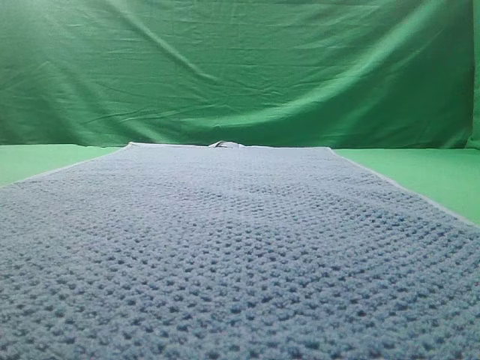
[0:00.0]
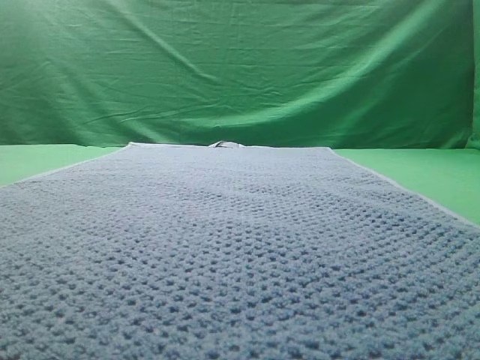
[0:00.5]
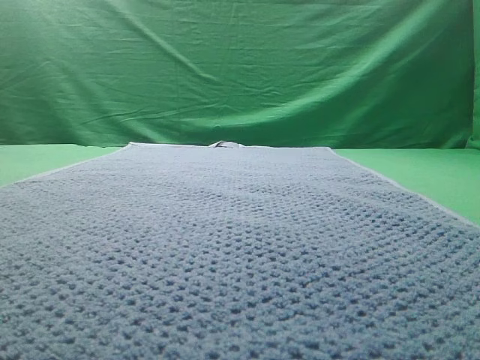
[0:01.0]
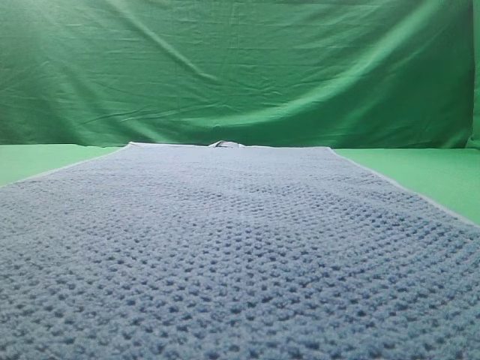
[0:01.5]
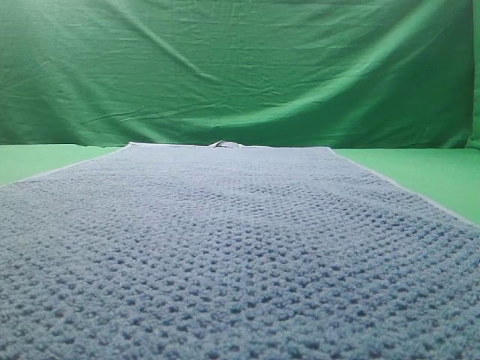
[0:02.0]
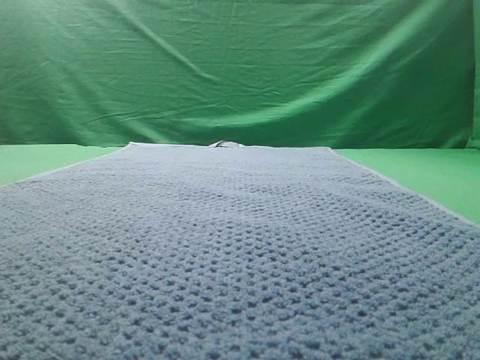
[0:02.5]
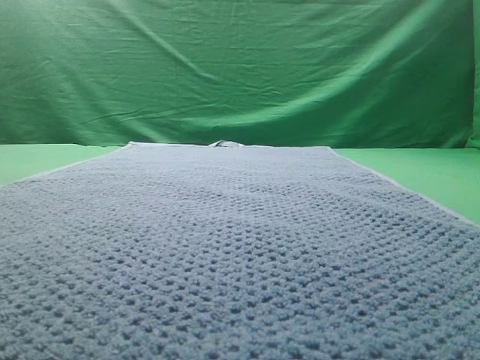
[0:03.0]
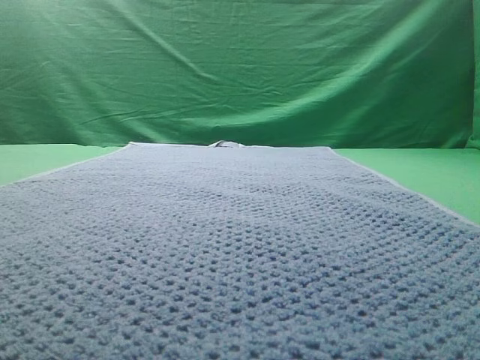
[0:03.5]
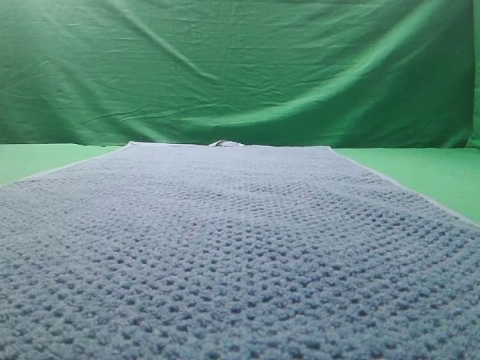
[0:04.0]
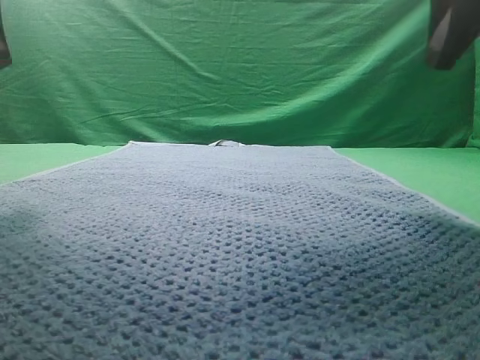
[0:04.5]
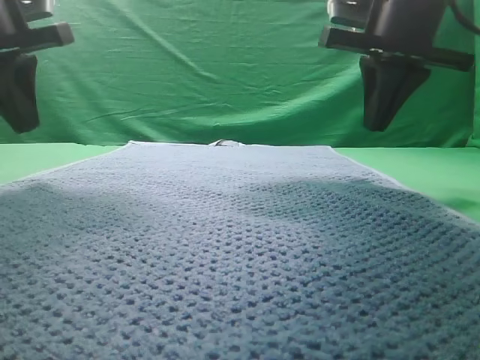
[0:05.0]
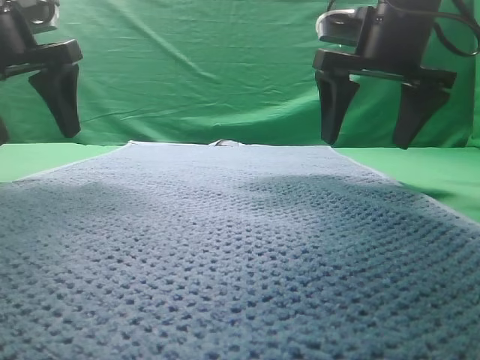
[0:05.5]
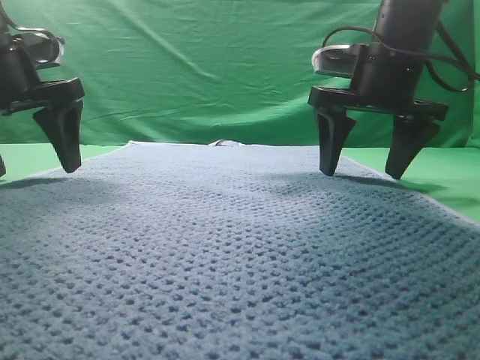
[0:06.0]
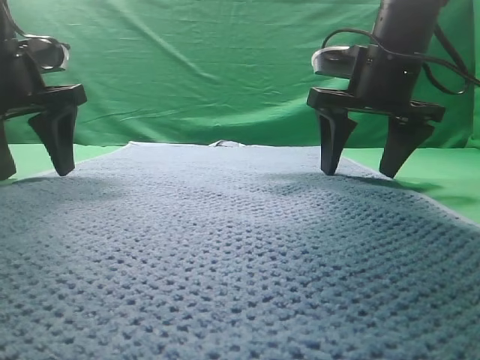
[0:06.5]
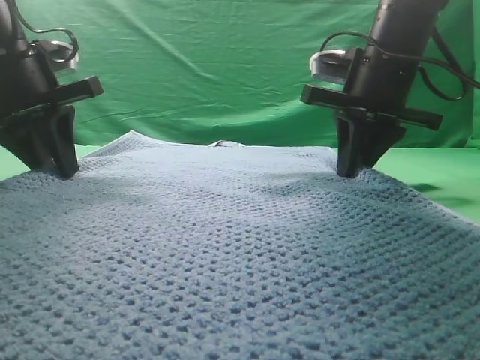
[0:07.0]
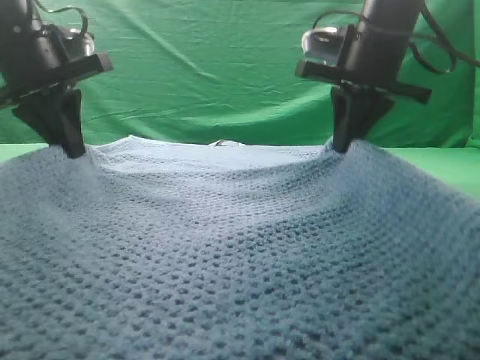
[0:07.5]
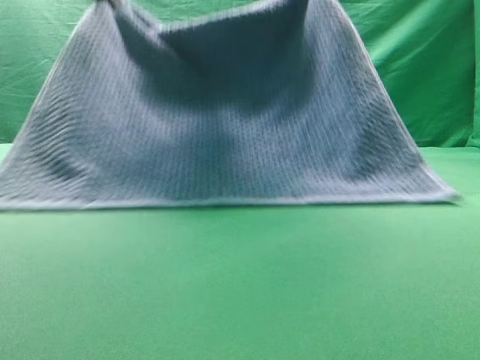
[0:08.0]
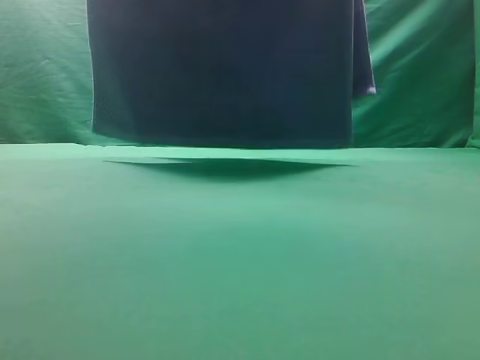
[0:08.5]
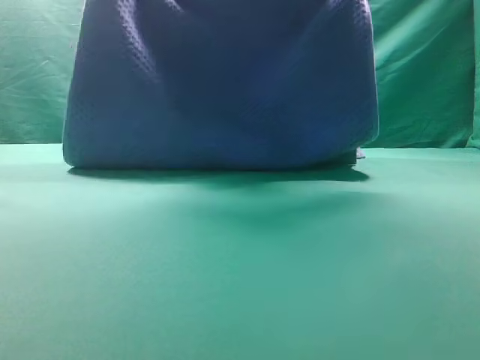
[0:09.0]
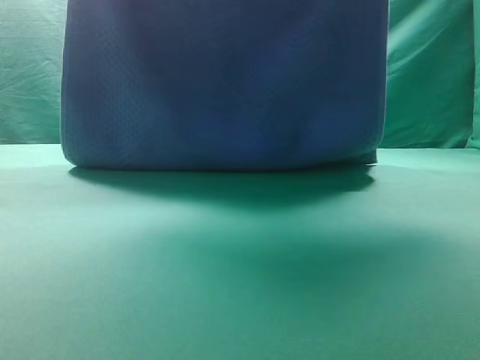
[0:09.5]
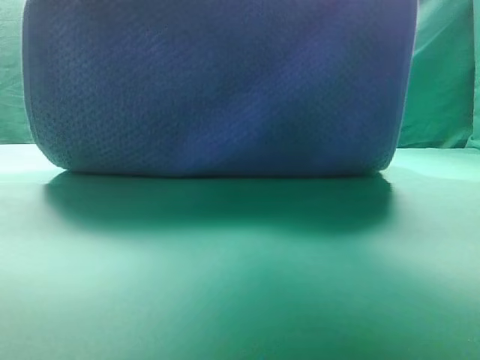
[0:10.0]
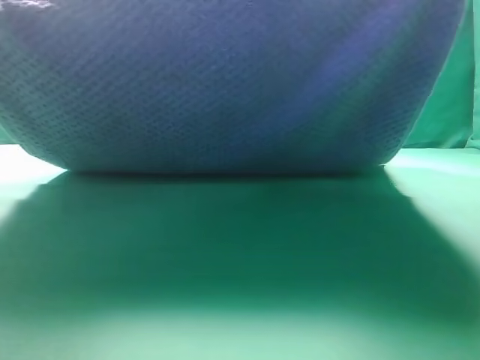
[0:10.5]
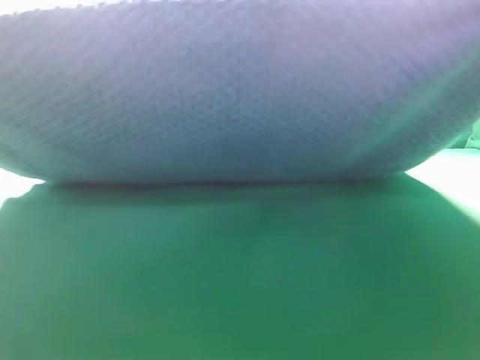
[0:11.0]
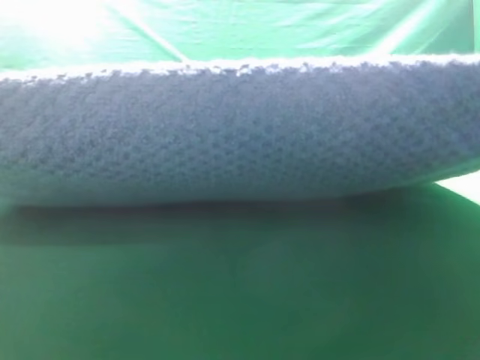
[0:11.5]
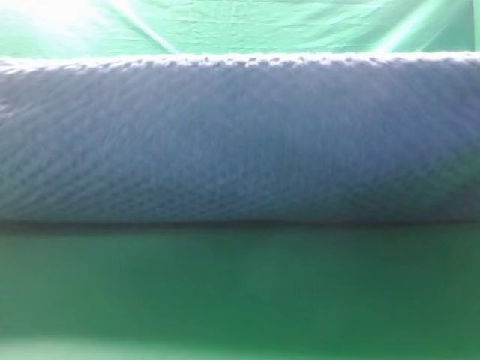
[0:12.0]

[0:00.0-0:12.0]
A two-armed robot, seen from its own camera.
Task of the whole recording: fold the towel on the table twice.
Step, 0:00.0 to 0:08.0: pick up the towel with two arm.

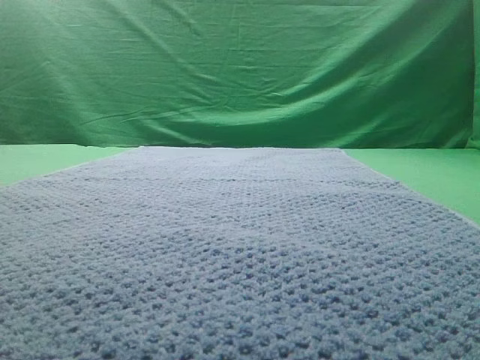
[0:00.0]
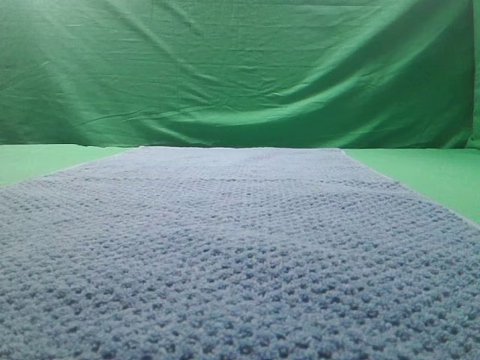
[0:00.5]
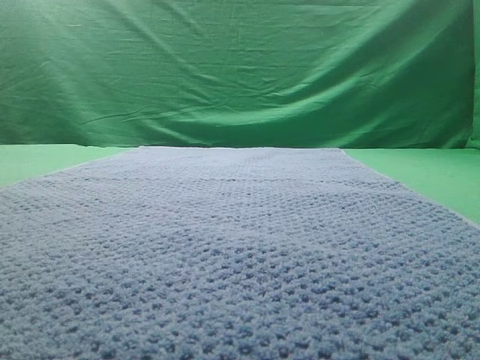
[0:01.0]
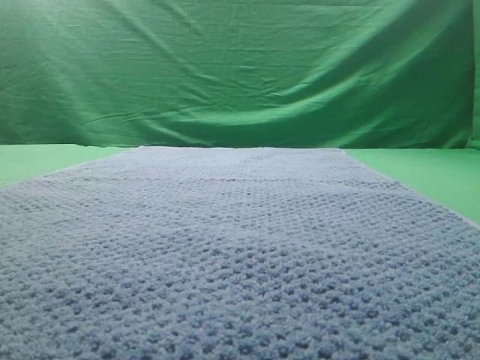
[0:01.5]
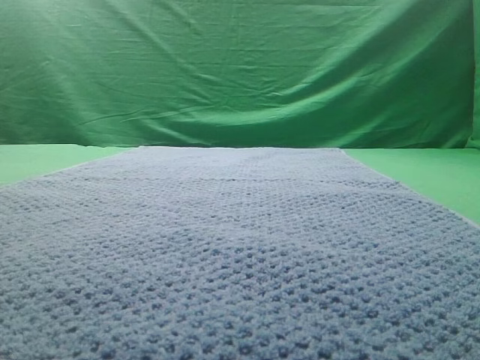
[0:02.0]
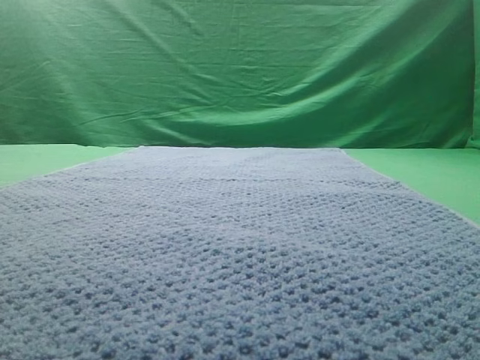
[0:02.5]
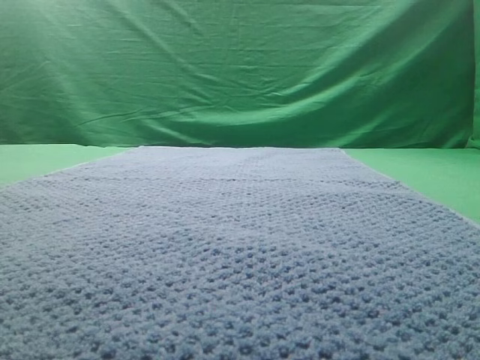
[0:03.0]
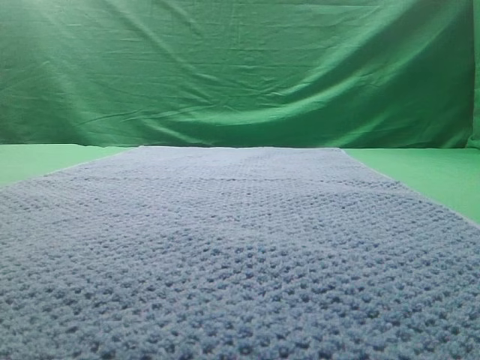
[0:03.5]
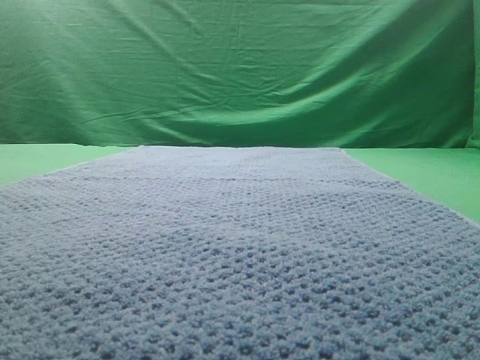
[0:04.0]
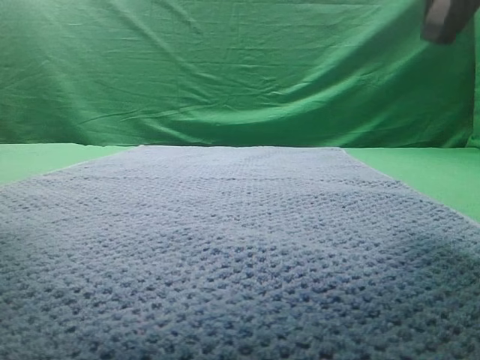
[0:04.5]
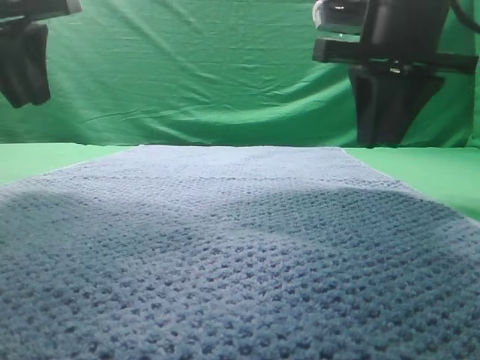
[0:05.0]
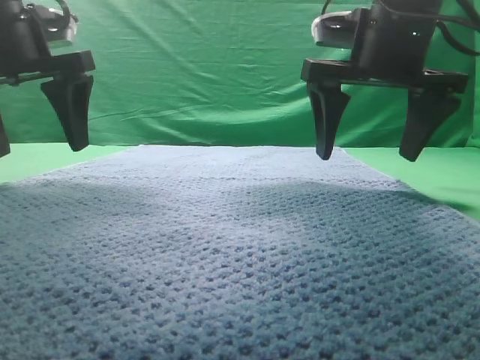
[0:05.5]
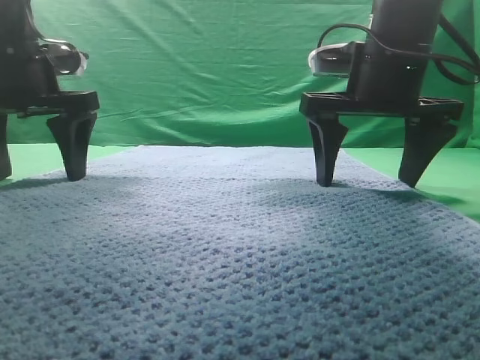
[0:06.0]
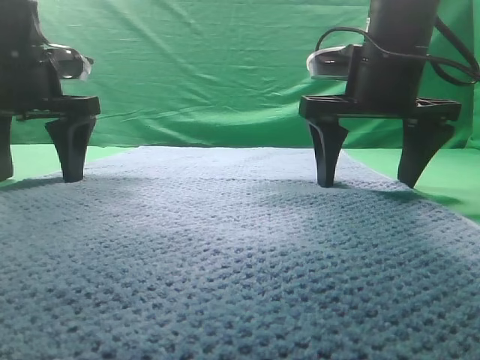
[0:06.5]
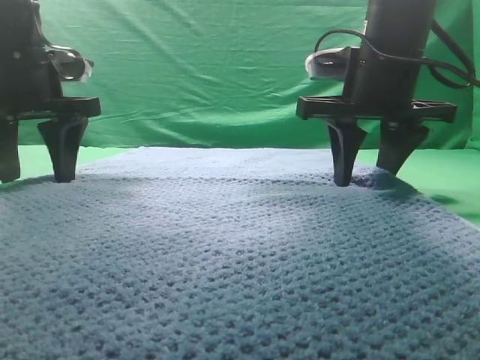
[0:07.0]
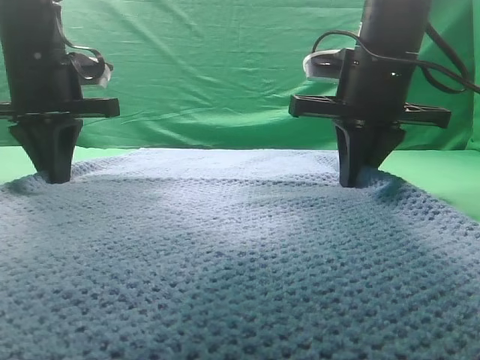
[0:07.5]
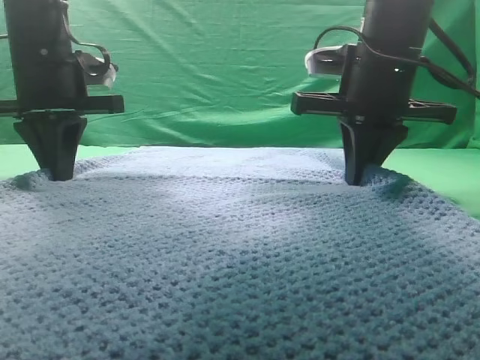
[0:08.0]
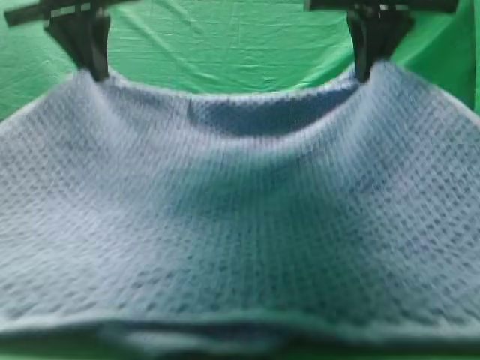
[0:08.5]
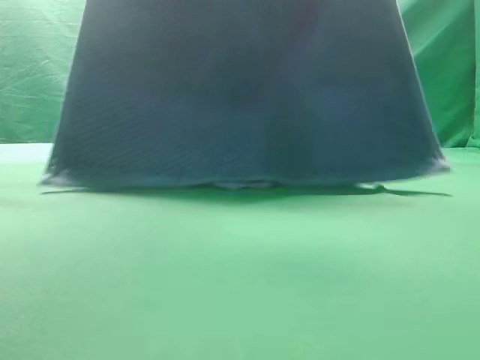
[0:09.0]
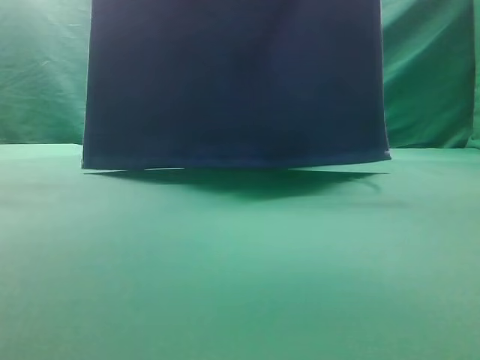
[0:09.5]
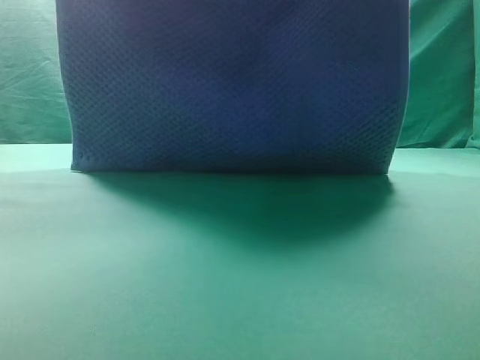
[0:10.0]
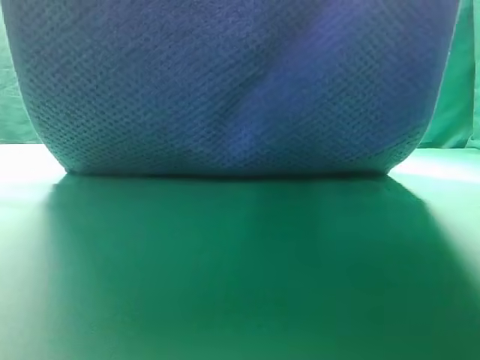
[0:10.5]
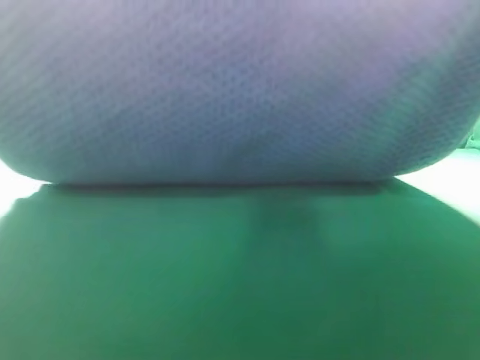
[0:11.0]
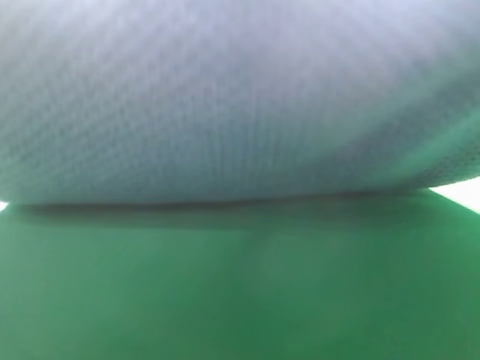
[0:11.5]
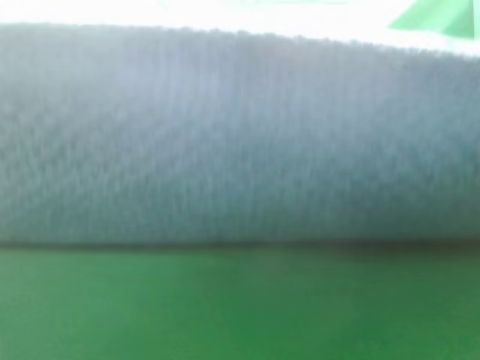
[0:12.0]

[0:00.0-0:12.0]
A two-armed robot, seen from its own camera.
Task of the whole recording: fold the towel on the table twice.
Step, 0:00.0 to 0:09.0: pick up the towel with two arm.
